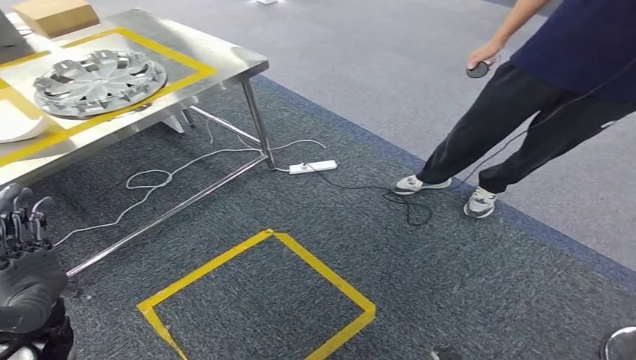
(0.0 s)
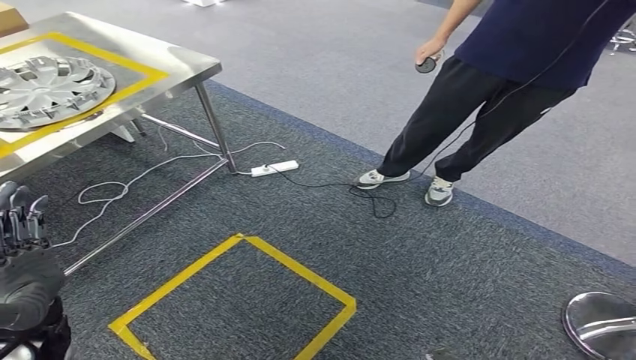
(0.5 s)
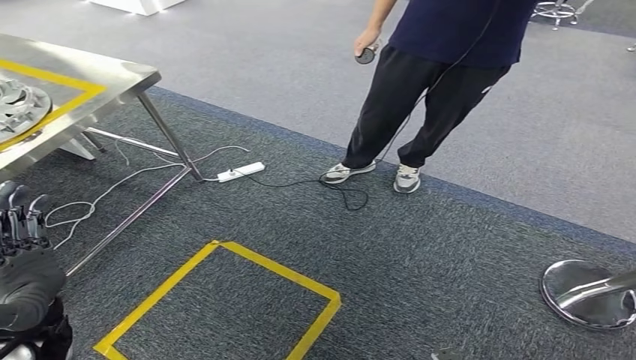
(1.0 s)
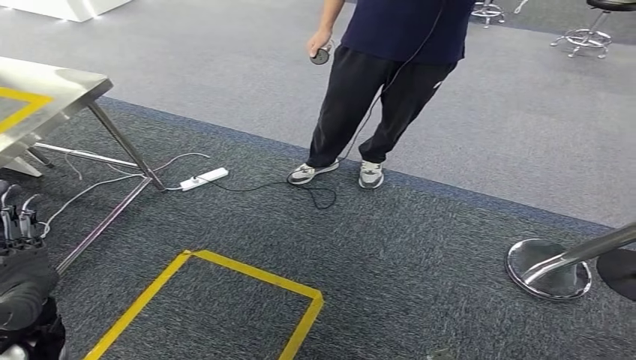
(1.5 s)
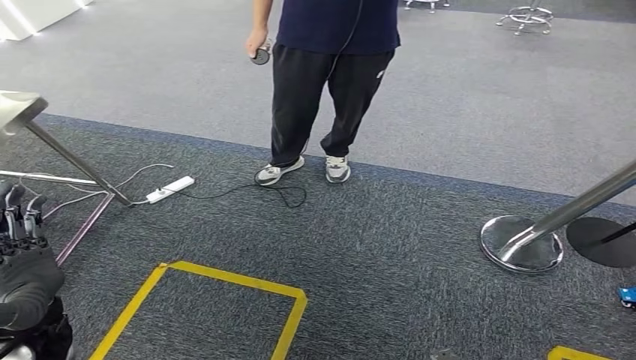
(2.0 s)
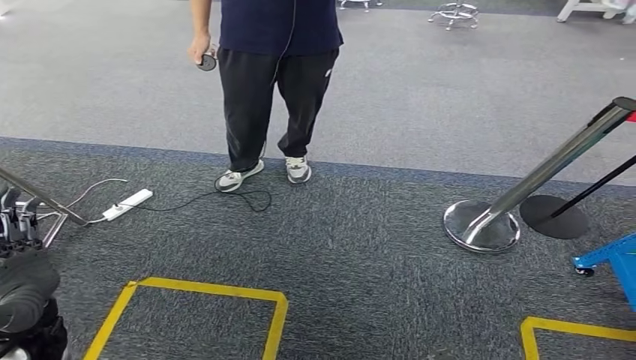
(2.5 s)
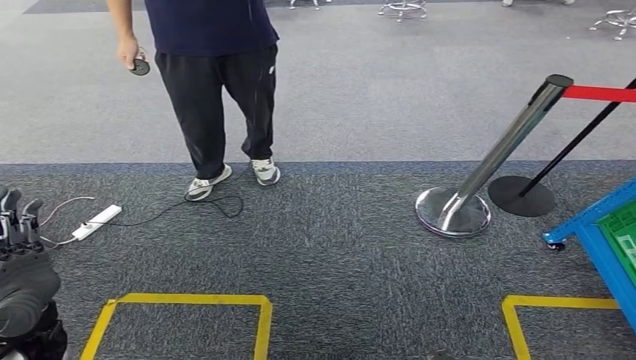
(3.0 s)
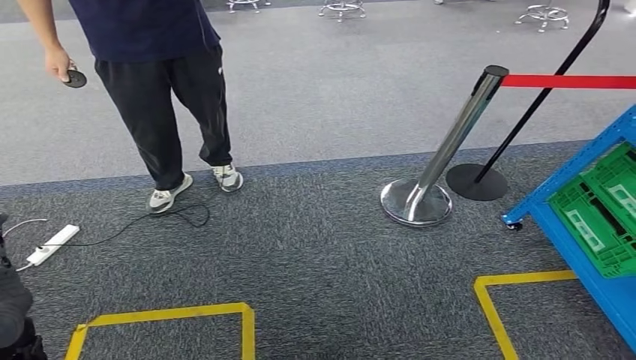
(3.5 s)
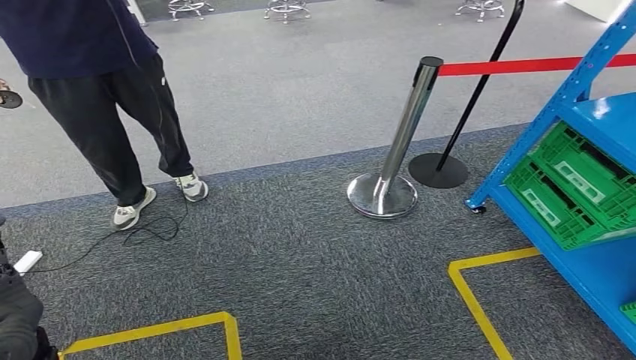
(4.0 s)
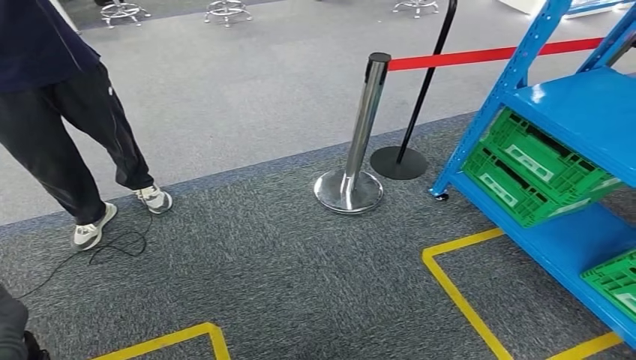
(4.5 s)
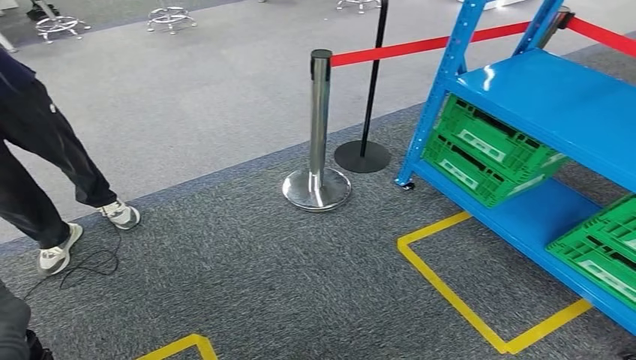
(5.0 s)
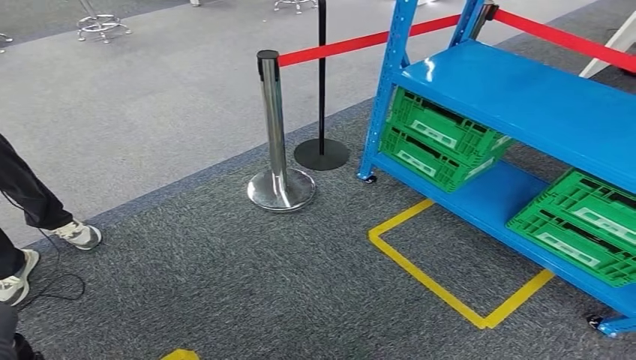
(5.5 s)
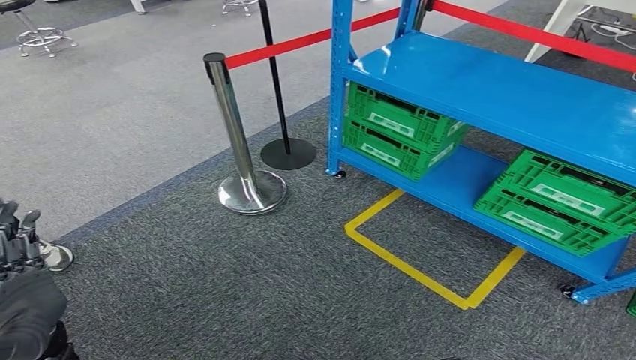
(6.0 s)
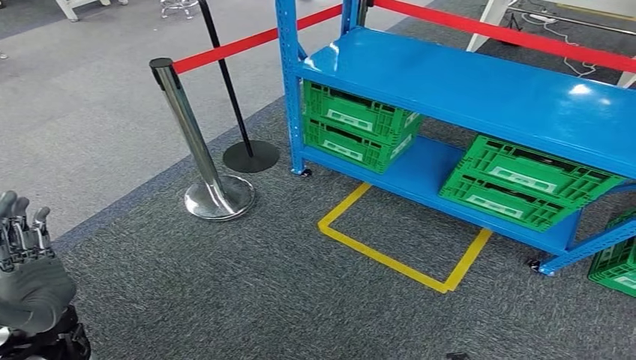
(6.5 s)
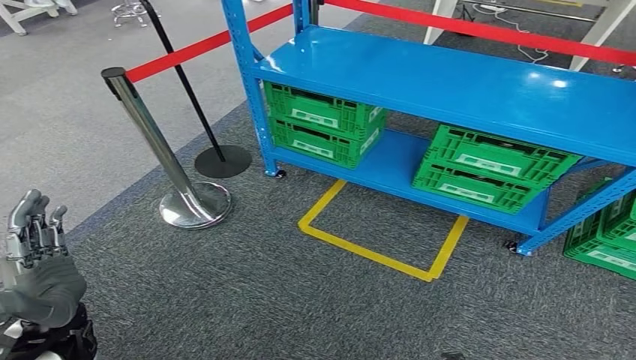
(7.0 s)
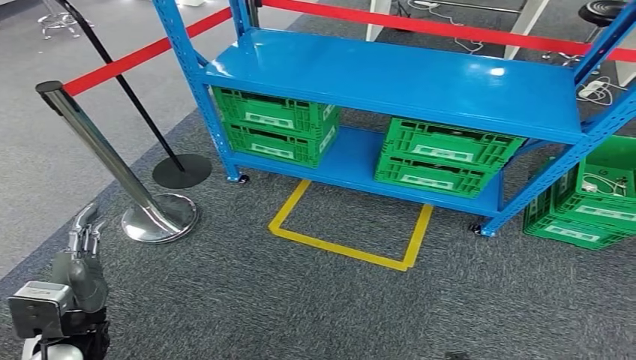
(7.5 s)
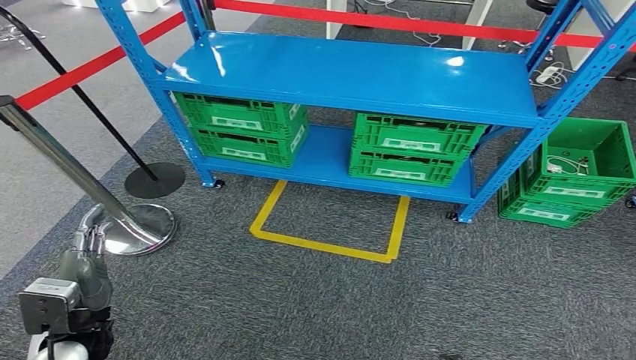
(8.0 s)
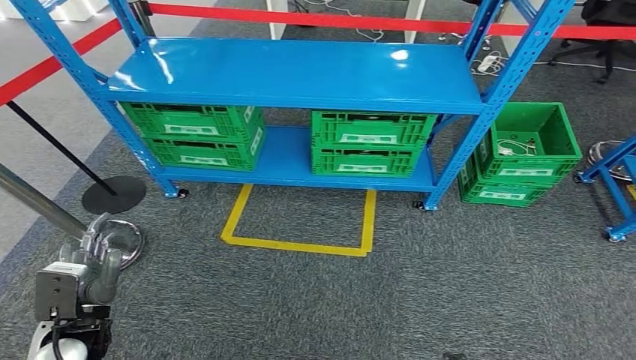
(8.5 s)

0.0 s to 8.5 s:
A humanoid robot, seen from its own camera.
Step, 0.0 to 8.5 s: Return to the initial position at the workbench.
